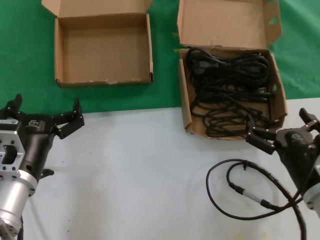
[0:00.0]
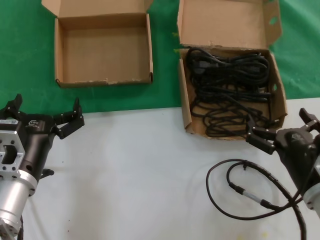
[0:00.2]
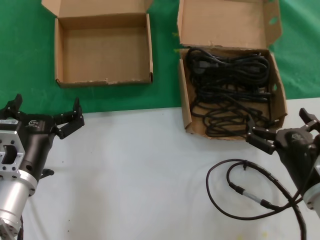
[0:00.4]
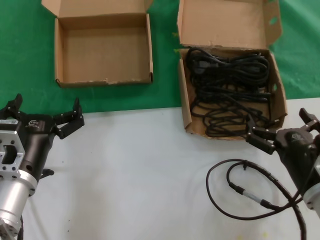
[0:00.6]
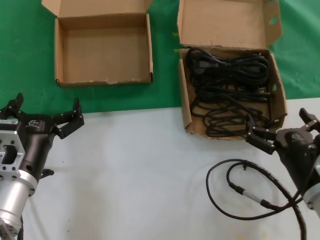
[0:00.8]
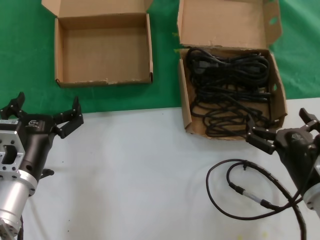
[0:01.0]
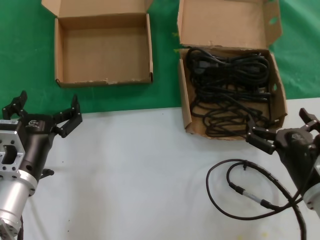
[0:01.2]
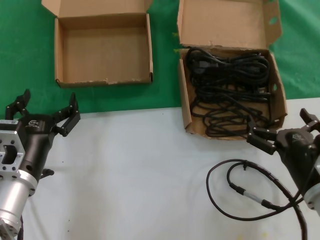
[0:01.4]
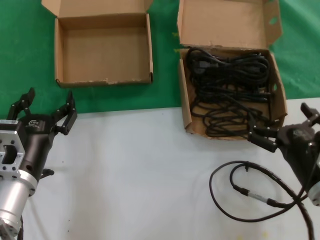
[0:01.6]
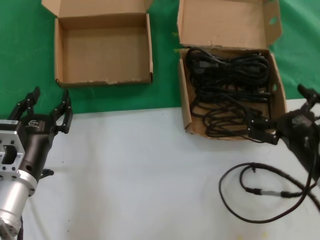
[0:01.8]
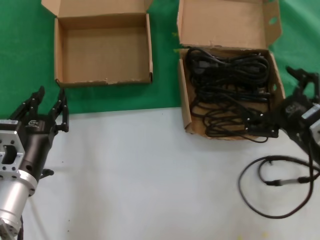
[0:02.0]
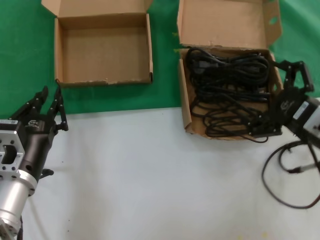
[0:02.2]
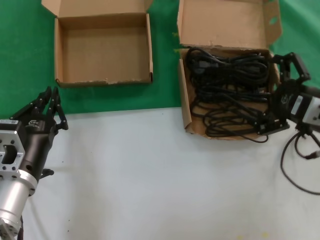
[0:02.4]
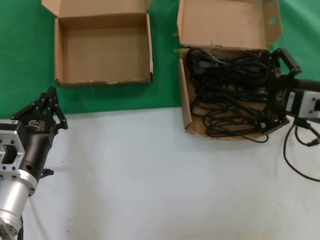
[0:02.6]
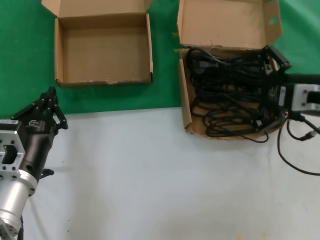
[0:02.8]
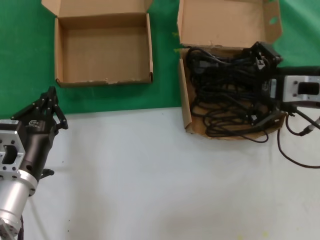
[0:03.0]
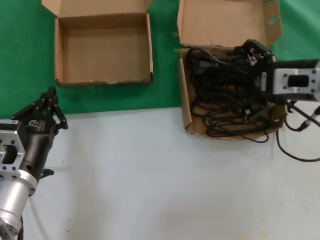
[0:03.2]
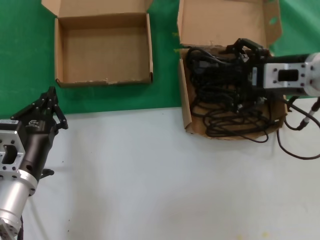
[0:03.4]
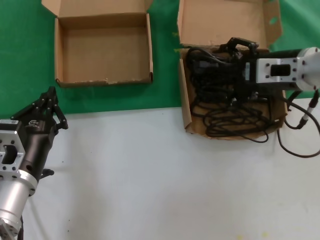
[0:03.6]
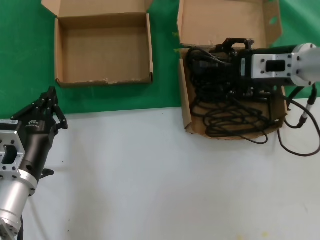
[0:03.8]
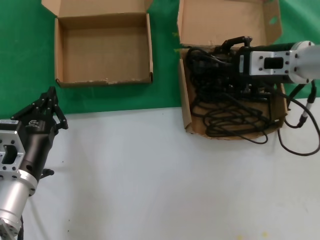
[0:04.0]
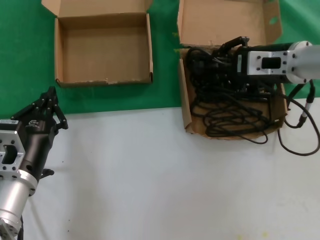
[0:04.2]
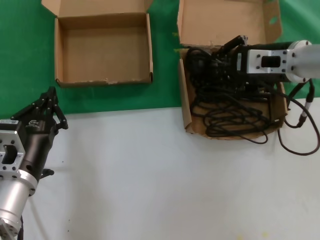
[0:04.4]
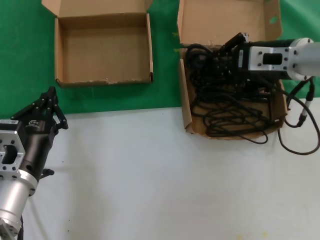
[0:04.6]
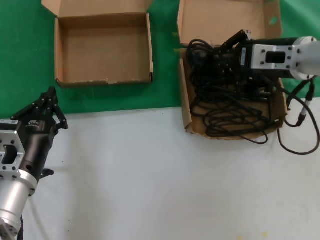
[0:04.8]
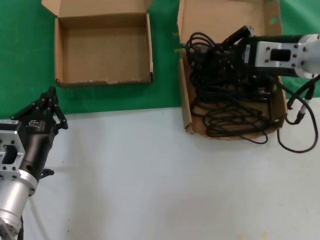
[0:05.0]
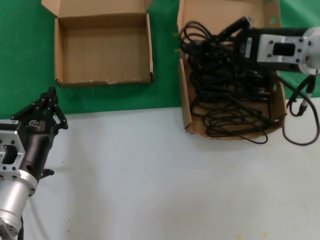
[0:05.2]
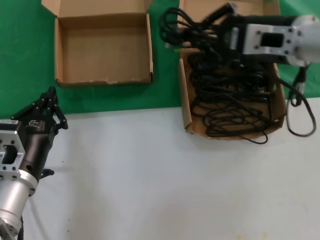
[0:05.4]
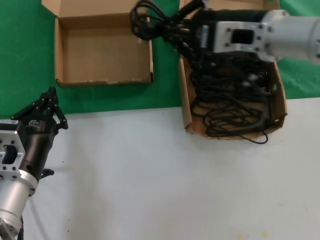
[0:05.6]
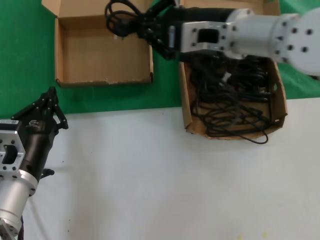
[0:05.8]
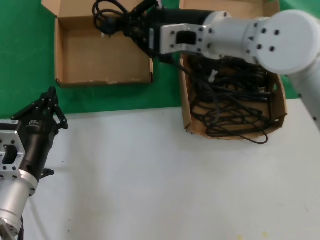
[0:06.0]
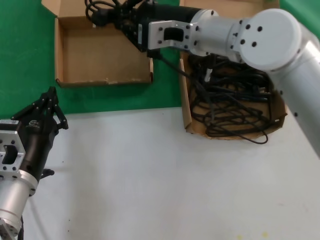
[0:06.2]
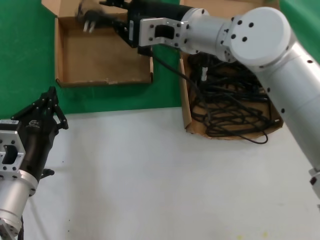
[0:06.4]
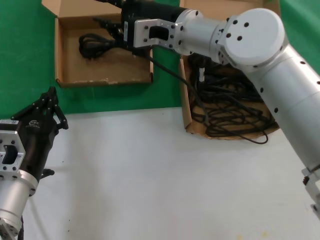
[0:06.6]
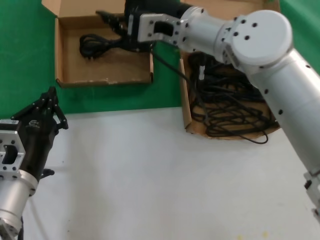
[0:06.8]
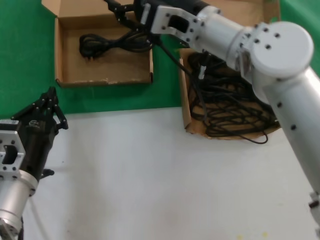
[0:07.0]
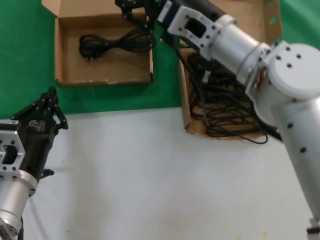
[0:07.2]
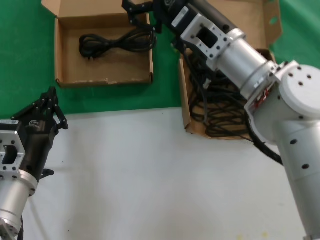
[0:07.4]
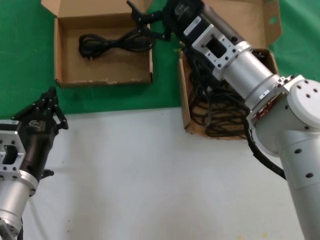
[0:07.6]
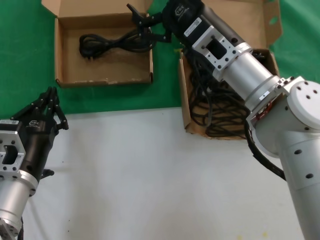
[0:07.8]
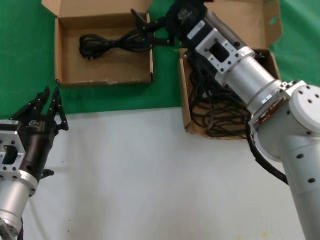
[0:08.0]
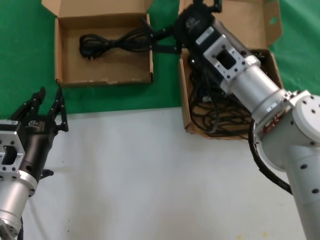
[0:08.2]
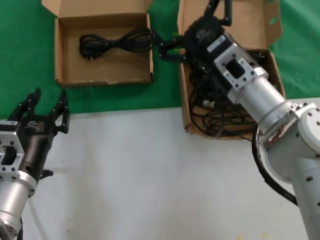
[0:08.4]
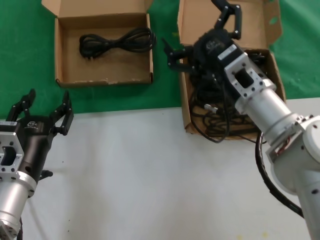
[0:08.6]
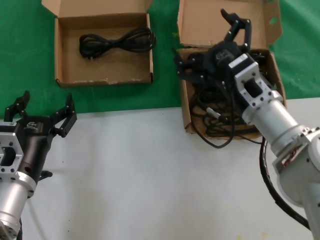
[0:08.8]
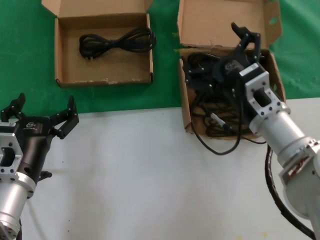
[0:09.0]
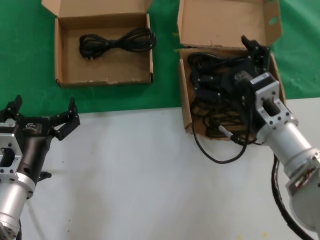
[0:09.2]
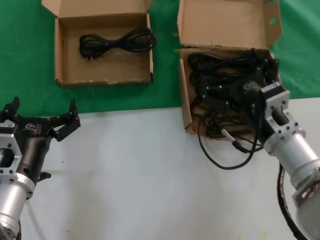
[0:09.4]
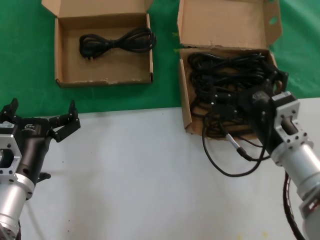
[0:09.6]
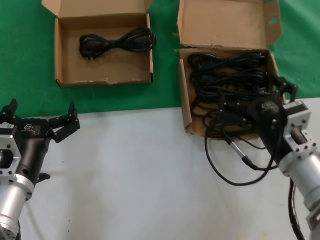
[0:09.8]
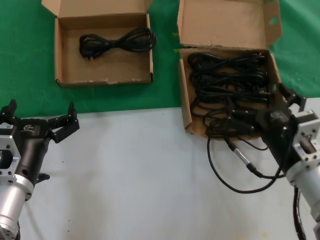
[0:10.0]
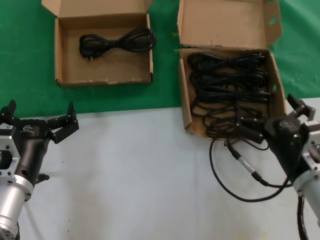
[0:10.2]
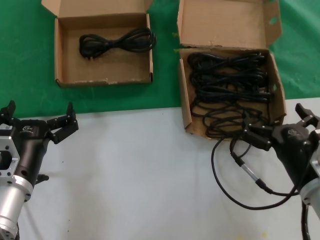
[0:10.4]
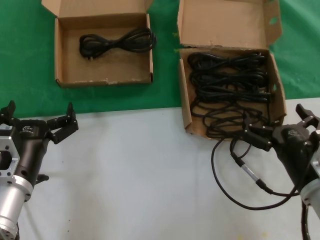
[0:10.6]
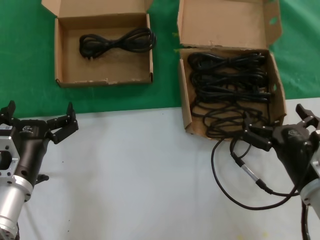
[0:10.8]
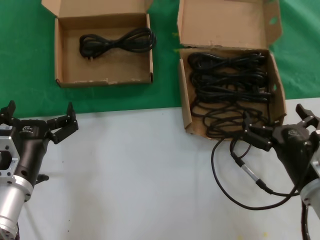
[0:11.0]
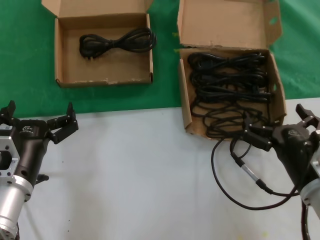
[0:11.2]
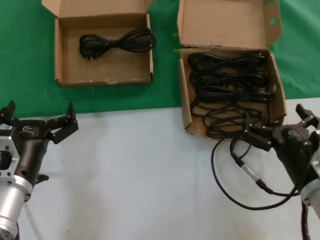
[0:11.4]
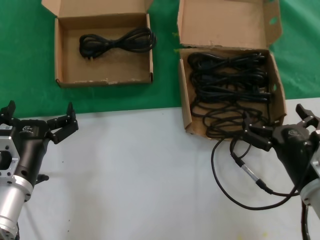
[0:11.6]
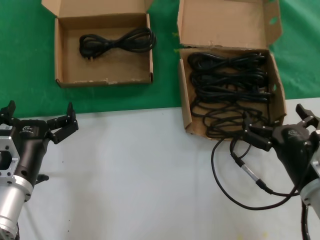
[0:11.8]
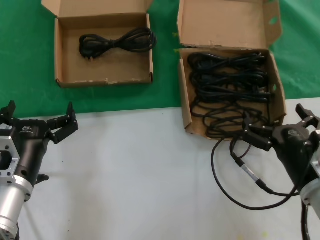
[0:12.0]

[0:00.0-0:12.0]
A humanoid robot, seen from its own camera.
Task of the whole recording: take the parts from the box containing them and put them into an empty box.
Step, 0:00.0 to 0:04.4: Grasp the data cable.
Step, 0:04.6 to 0:06.4: Place the data cable in the another box.
0:00.0 to 0:01.6: Neither hand changes place.
0:01.6 to 0:03.0: The right hand goes roughly 20 cm upward and forward.
0:03.0 to 0:04.4: The right hand heads forward, covering about 10 cm.
0:04.4 to 0:06.0: The right hand is displaced to the left by about 15 cm.
0:06.0 to 0:07.6: The right hand goes approximately 10 cm downward.
0:07.6 to 0:09.0: The right hand goes approximately 10 cm downward, to the right and backward.
0:09.0 to 0:10.4: The right hand is displaced backward, downward and to the right by some 15 cm.
0:10.4 to 0:12.0: Both hands stay about where they are.

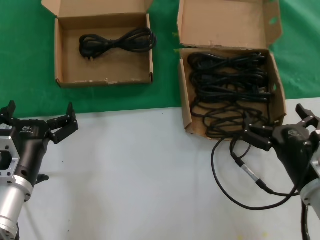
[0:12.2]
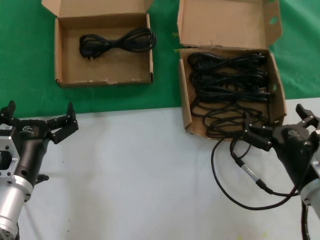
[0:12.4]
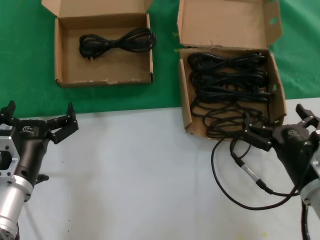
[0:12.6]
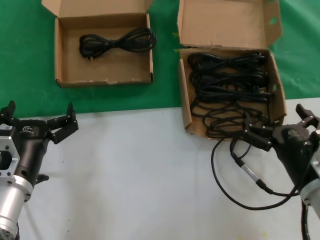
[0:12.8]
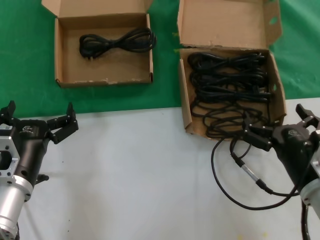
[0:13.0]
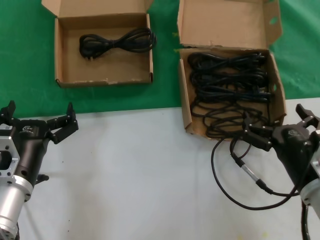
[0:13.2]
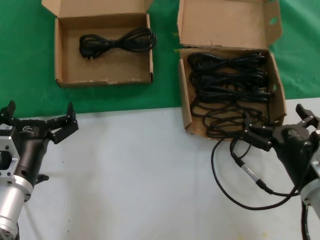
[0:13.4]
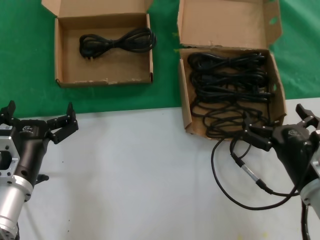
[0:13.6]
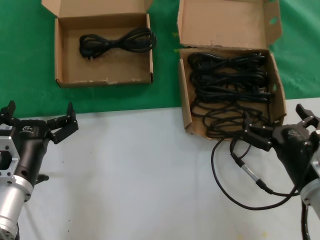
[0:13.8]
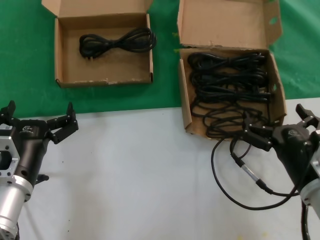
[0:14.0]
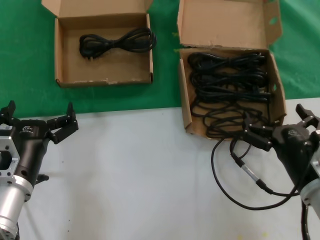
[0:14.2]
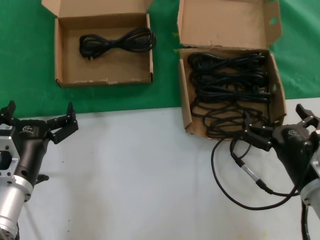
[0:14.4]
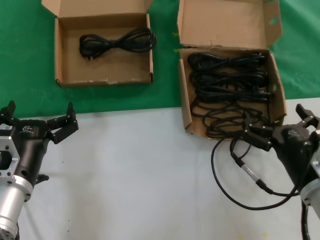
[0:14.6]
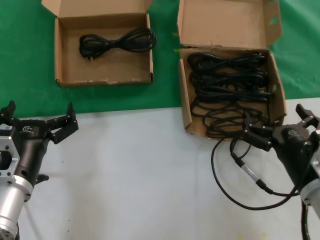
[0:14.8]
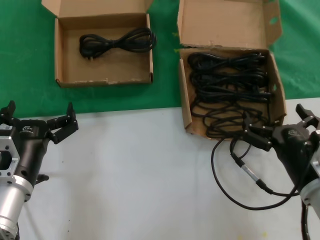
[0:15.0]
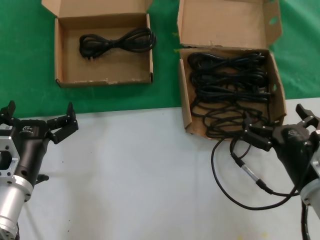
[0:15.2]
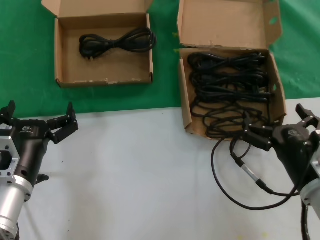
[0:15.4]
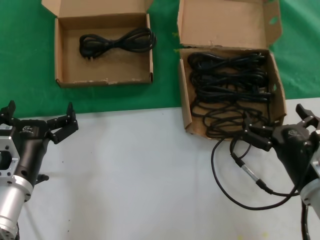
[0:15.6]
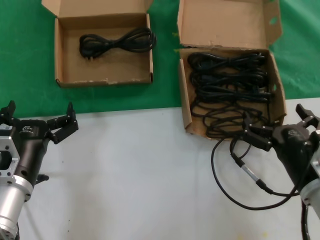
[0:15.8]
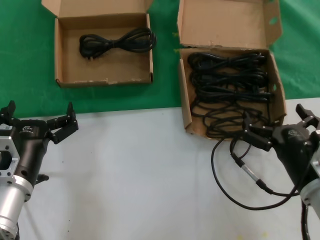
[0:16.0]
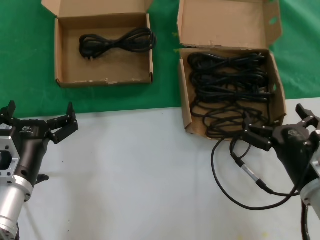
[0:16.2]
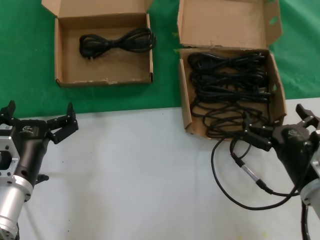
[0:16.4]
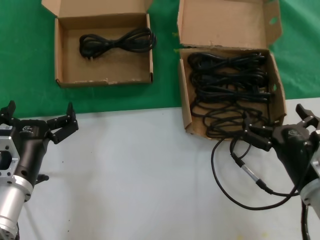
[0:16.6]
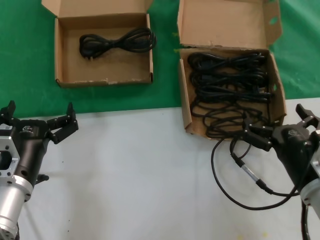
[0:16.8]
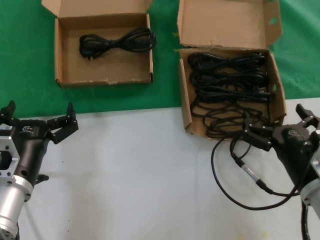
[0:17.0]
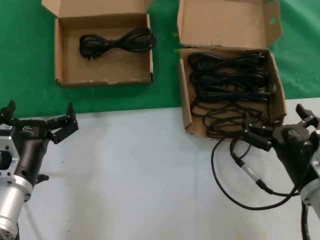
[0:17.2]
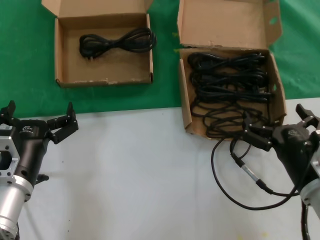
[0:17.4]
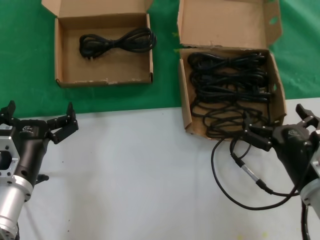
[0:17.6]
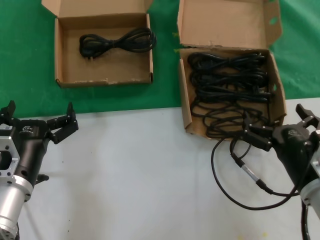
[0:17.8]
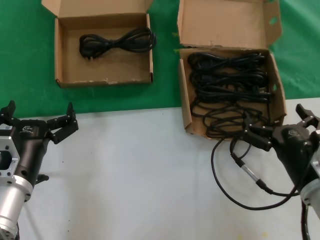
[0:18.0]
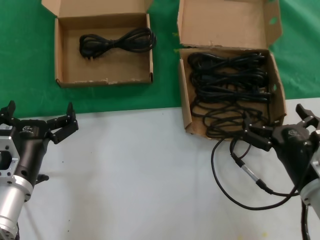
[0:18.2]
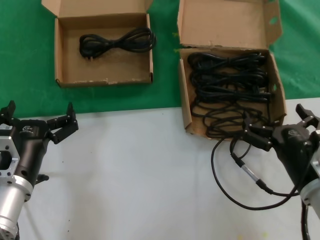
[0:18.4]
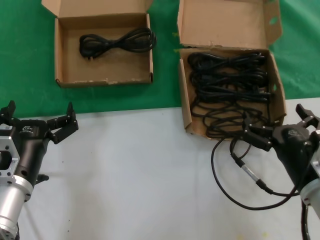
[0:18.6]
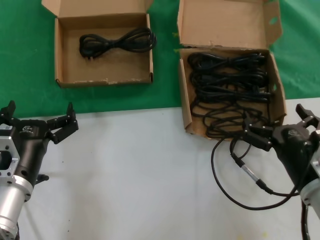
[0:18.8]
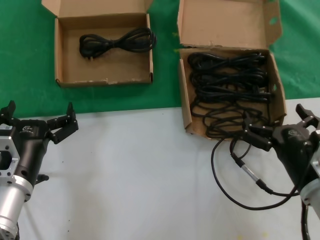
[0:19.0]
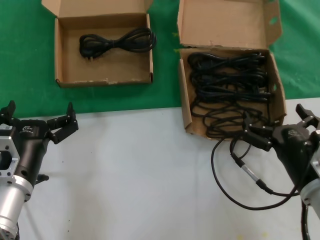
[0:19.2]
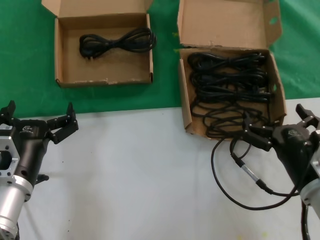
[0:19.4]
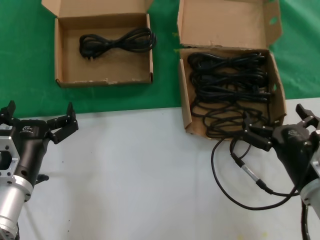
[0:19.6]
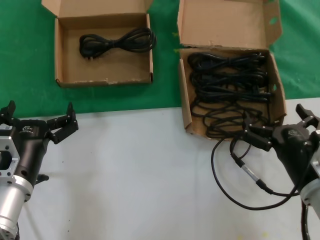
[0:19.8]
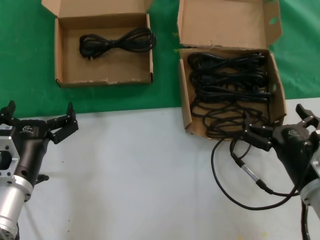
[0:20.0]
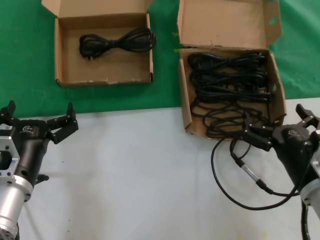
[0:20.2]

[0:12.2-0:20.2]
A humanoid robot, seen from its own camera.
Task of the whole recording: take the parts from the box containing them and put them into an empty box.
0:12.2 to 0:20.2: The two hands keep their place.
